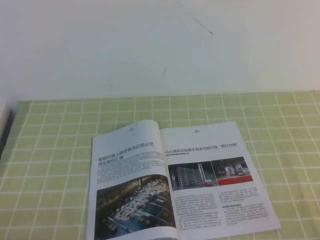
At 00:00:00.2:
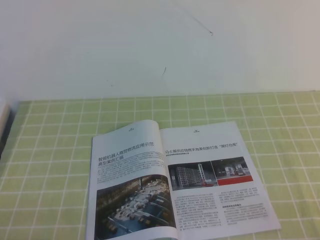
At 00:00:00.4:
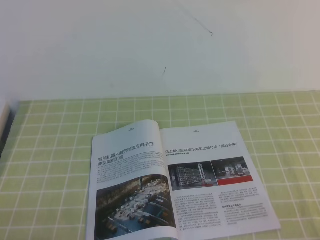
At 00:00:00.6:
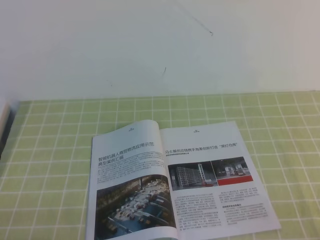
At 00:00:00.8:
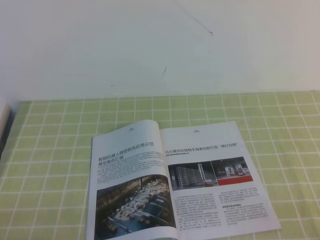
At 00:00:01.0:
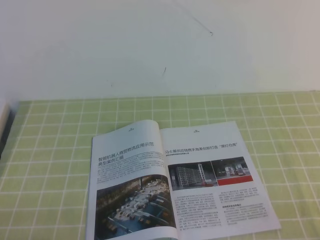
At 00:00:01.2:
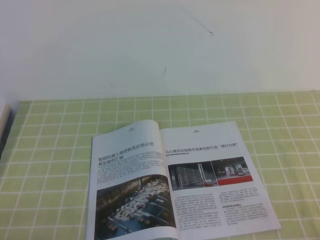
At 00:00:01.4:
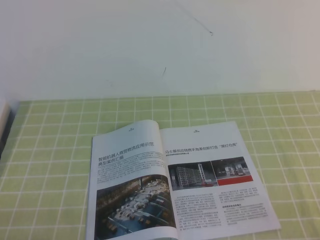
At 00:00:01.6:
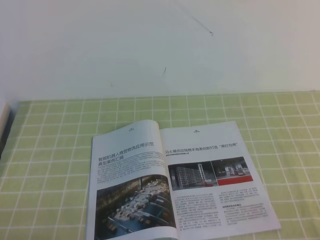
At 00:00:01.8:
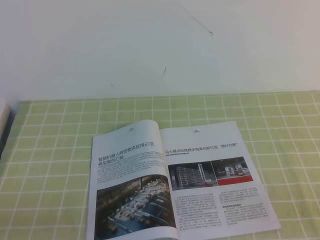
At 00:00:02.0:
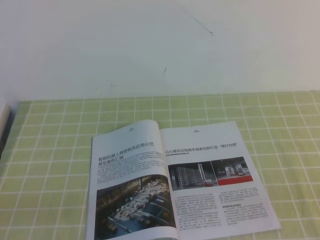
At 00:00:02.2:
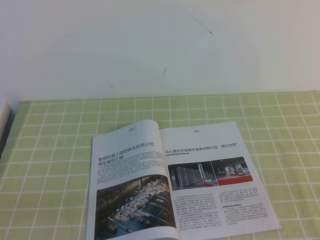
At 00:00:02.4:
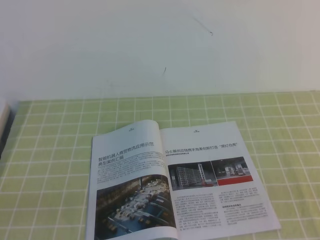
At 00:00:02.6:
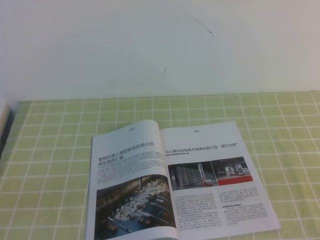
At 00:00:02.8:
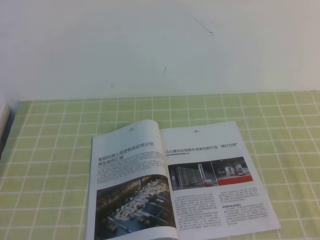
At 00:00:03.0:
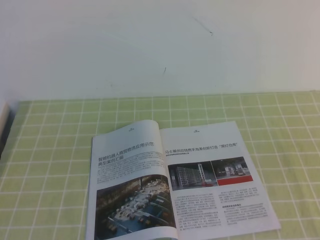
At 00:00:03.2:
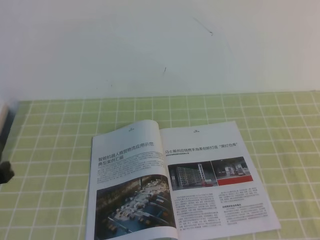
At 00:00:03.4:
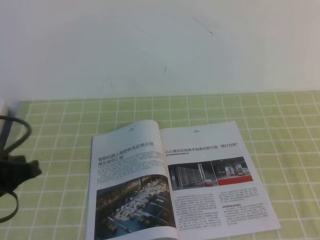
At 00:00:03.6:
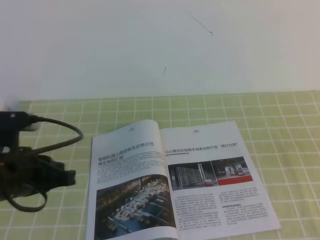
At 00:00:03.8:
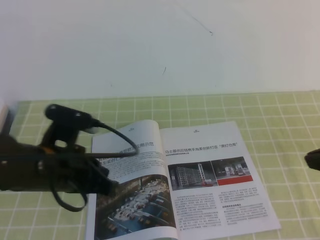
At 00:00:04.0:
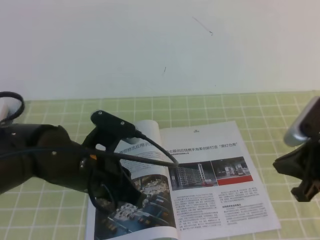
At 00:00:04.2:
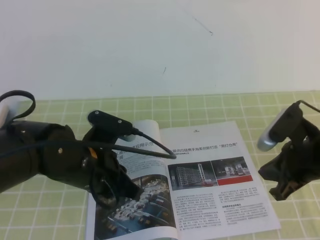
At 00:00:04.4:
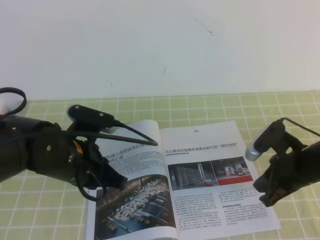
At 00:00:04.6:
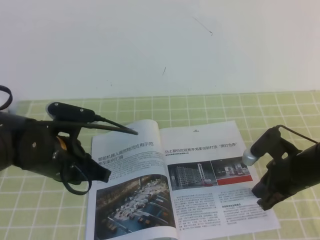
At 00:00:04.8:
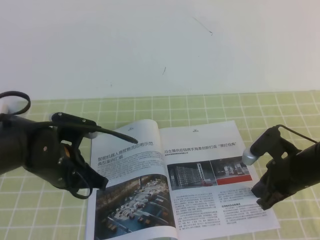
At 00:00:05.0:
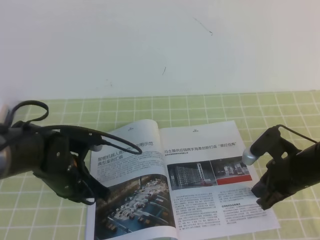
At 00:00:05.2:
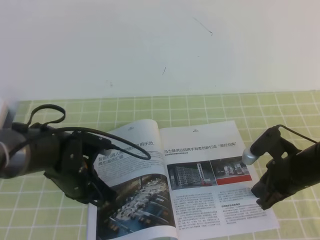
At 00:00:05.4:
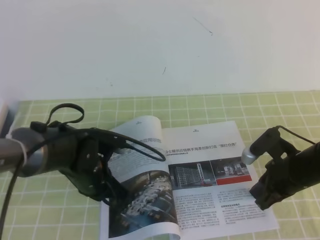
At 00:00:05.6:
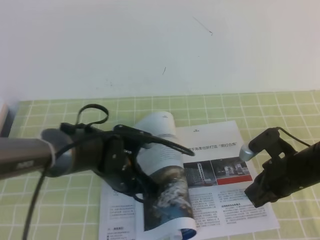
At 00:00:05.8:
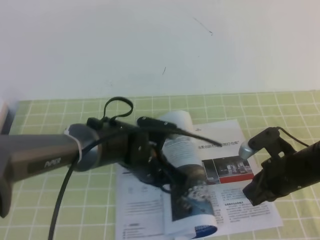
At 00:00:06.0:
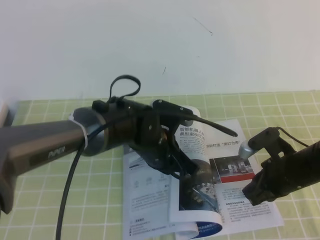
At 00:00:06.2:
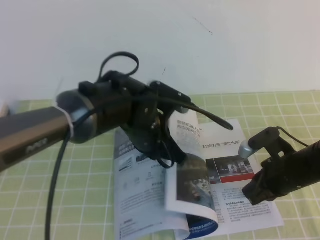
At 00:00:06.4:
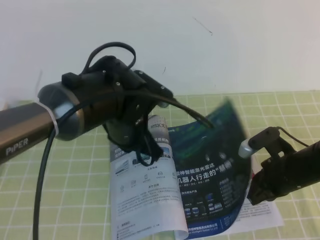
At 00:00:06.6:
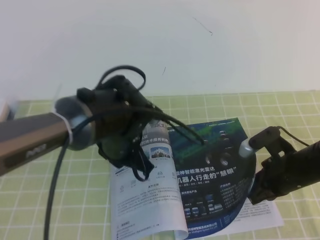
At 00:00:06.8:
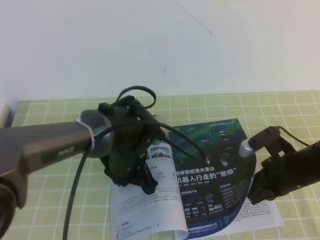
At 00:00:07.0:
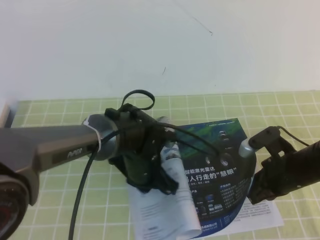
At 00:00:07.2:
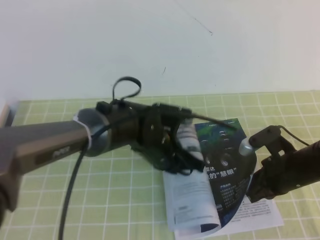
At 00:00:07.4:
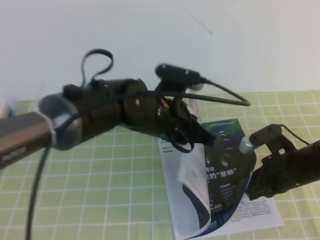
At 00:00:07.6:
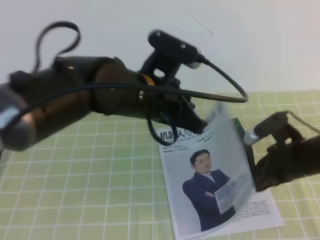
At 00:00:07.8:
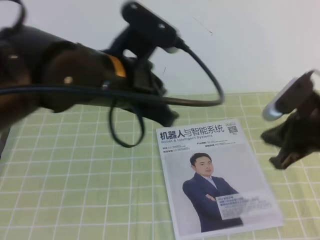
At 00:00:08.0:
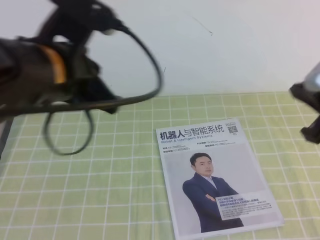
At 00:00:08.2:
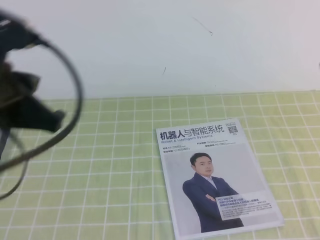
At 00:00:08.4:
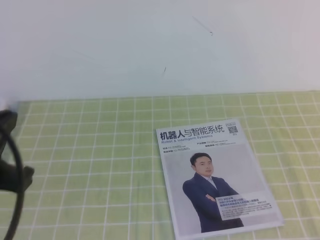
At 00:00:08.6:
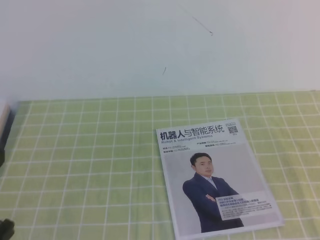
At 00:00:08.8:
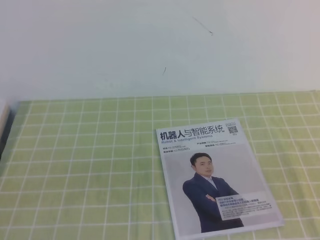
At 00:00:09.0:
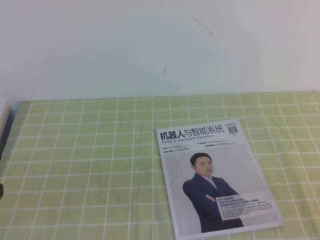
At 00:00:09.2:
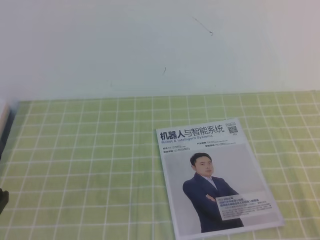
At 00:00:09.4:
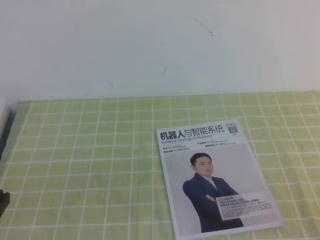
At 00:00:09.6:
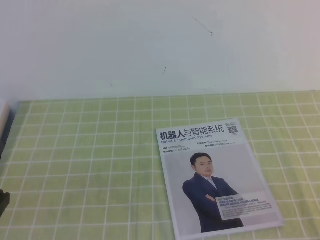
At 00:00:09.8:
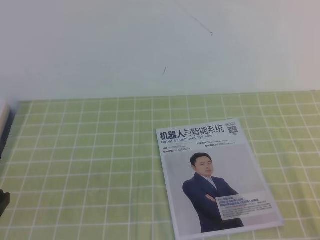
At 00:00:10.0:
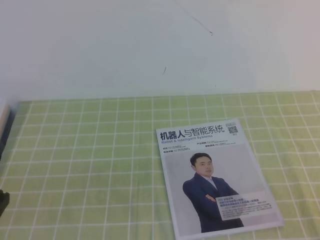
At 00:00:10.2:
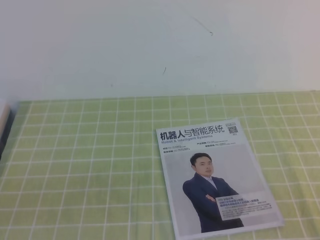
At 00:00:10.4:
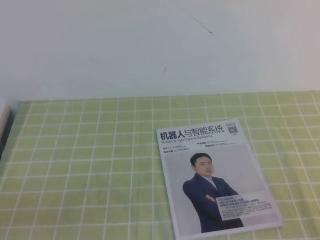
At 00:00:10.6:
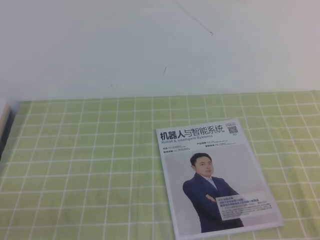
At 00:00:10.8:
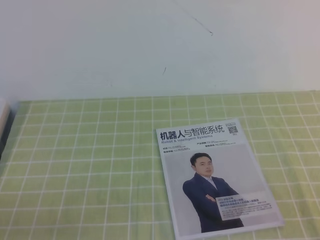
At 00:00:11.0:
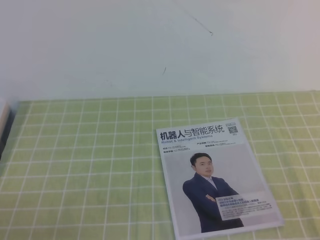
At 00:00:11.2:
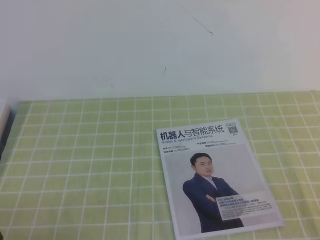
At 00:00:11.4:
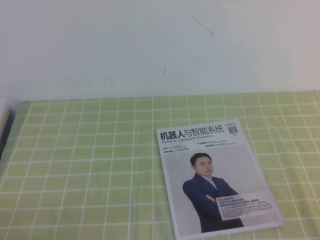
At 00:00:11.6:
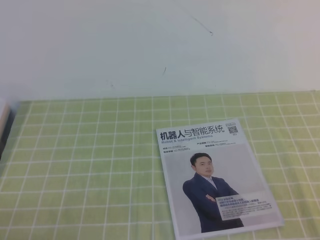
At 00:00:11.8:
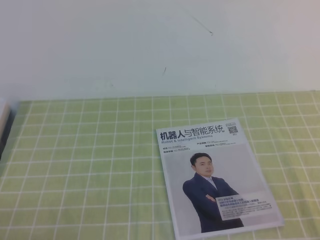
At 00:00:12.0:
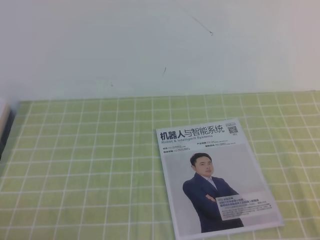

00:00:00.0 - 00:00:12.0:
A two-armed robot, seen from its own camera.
Task of the whole recording: on the green tablecloth, hold the book with one hand and close it with the other.
00:00:00.0 - 00:00:01.6: The two grippers keep their place.
00:00:03.0 - 00:00:04.4: The left gripper is displaced forward, to the right and downward by some 25 cm. The right gripper shifts approximately 30 cm forward, downward and to the left.
00:00:04.4 - 00:00:06.0: The left gripper goes about 15 cm to the right and forward.
00:00:06.0 - 00:00:07.6: The left gripper swings up and down, roughly 15 cm each way, with 2 reversals.
00:00:07.6 - 00:00:09.0: The left gripper shifts about 30 cm backward and to the left. The right gripper is displaced backward and upward by approximately 25 cm.
